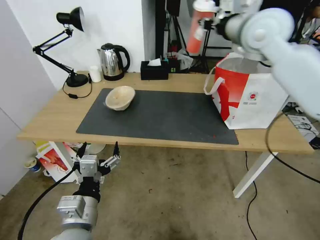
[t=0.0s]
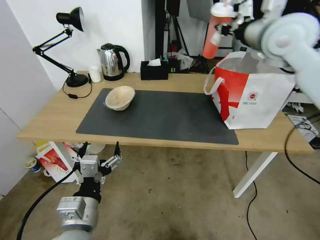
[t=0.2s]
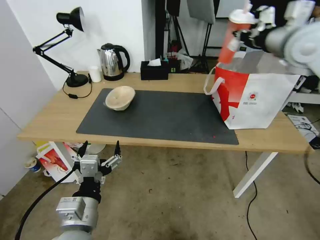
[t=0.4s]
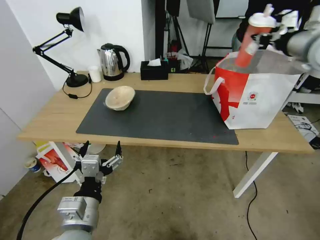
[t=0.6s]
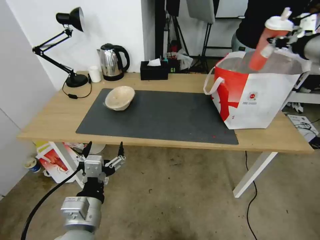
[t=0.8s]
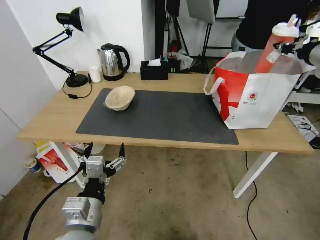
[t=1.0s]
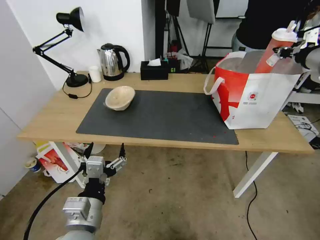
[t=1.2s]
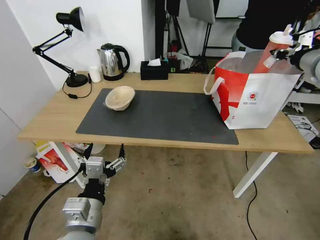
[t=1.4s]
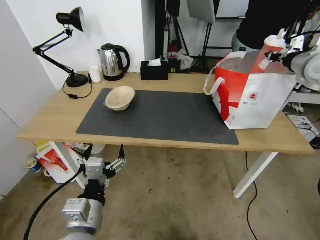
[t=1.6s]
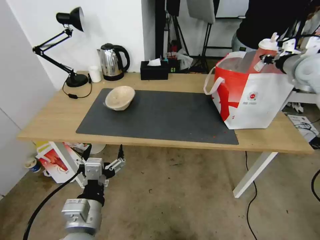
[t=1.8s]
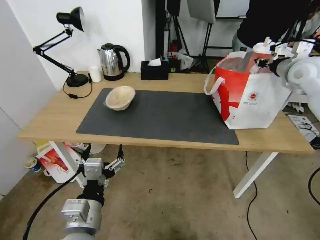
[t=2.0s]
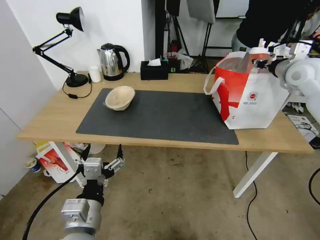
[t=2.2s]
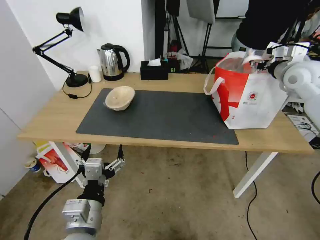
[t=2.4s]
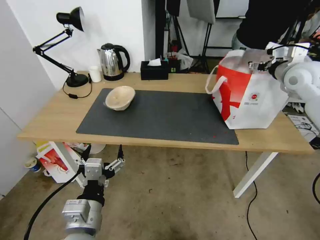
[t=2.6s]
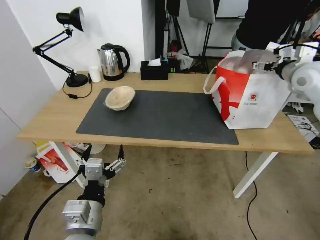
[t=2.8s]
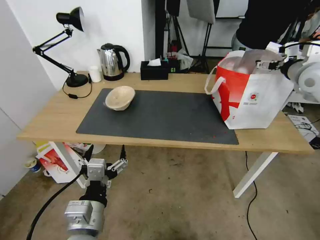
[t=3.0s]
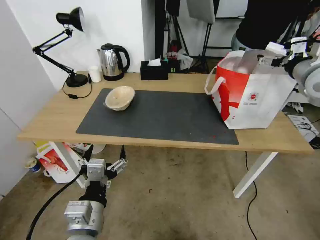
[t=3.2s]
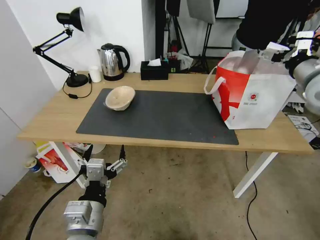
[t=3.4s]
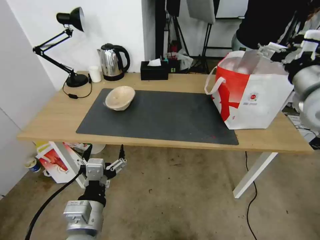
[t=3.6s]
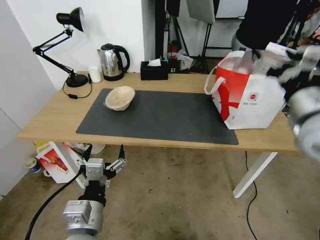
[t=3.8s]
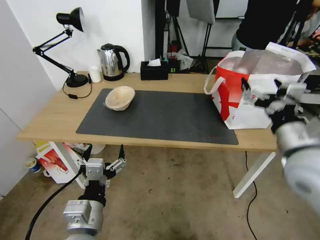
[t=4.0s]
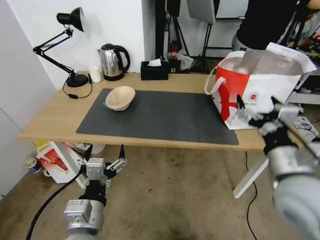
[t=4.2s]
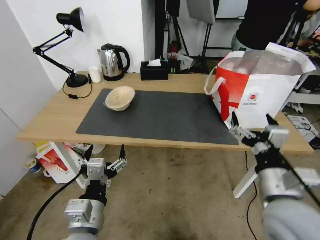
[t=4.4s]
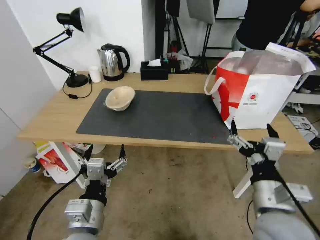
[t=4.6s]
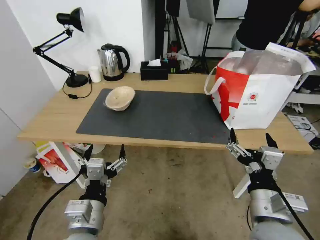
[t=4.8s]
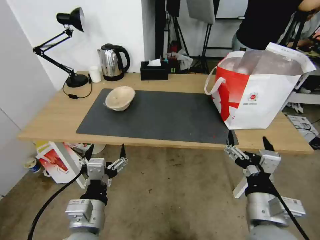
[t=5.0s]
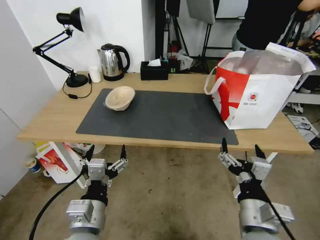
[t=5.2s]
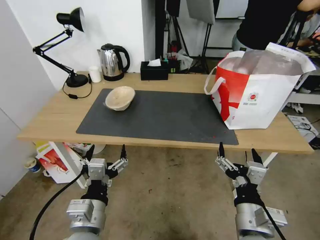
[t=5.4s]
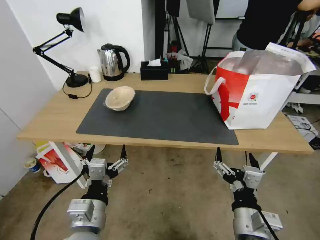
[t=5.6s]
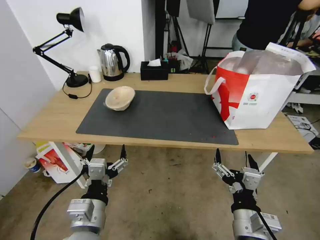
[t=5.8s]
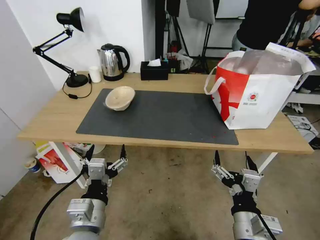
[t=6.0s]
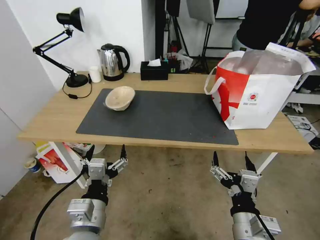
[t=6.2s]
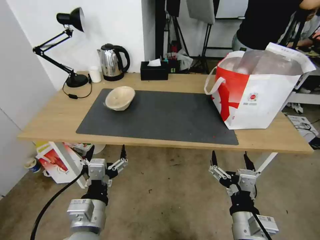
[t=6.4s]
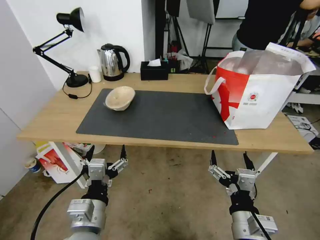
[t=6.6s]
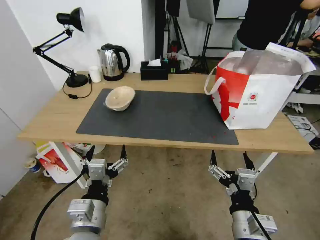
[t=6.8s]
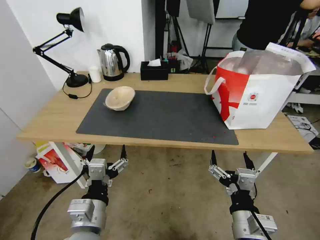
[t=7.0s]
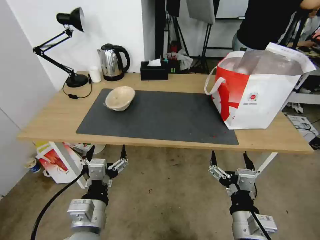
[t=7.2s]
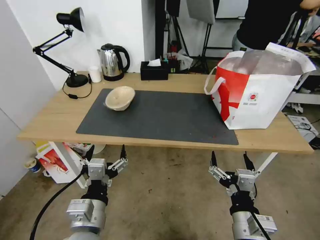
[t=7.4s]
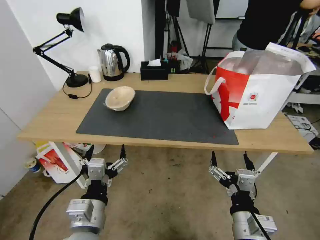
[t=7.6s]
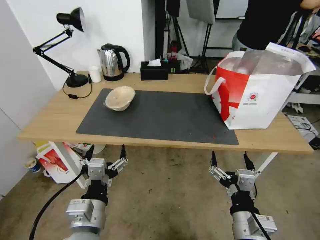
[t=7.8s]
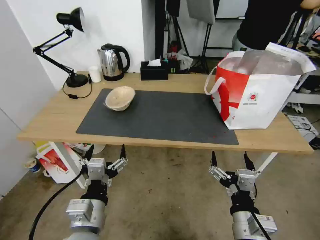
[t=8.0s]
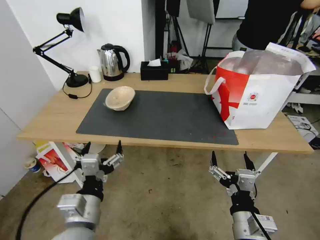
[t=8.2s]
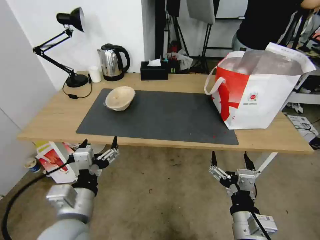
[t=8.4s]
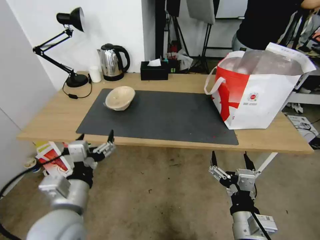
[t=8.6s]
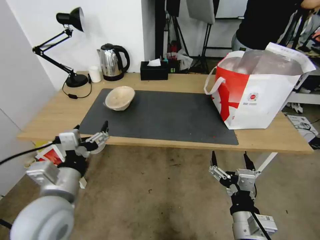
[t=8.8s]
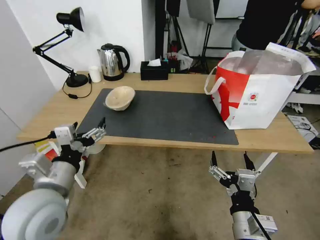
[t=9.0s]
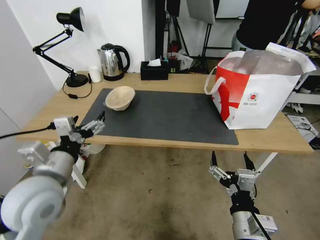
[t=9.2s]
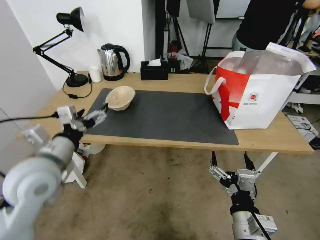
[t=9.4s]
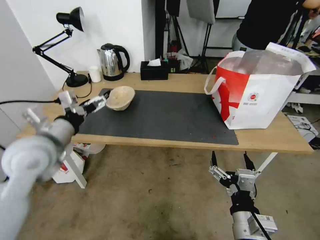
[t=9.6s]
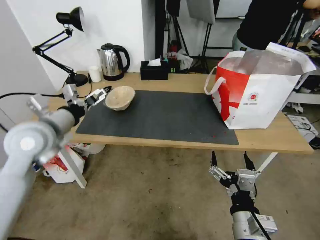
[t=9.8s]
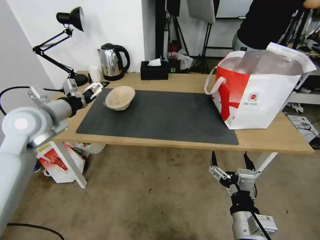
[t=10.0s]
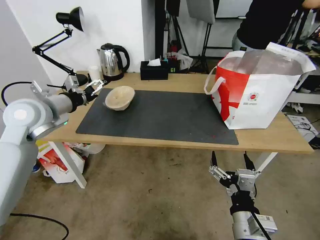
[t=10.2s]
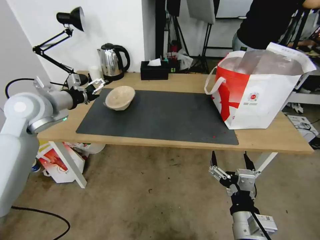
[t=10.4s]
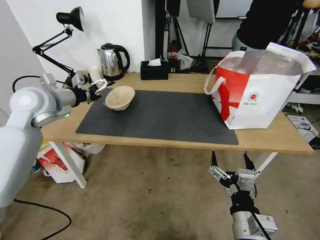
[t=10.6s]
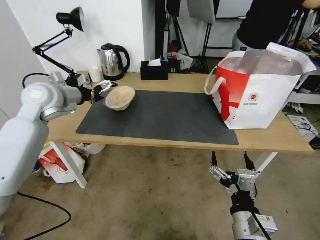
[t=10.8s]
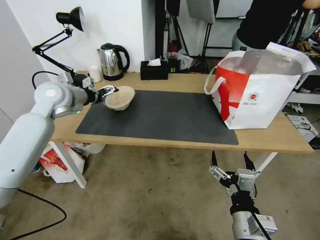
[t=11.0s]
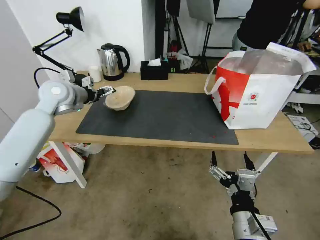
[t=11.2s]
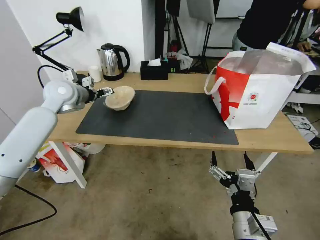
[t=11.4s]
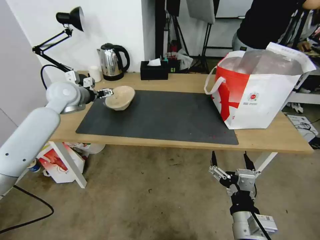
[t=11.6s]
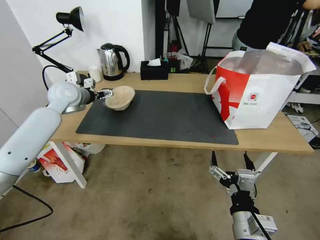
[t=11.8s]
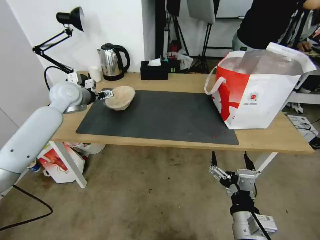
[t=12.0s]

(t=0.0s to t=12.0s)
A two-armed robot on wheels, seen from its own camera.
Task of the whole recording: Pick up the trash from the table and place it into the takeout bag.
t=0.0s - t=1.6s: The right gripper travels to the right and downward by roughly 25 cm.
t=1.6s - t=3.0s: The right gripper opens its fingers.
t=3.0s - t=4.4s: The right gripper goes about 35 cm backward, to the left and downward.
t=4.4s - t=6.0s: The right gripper goes about 15 cm downward, backward and to the left.
t=6.0s - t=7.6s: There are only small adjustments of the grippers.
t=7.6s - t=9.0s: The left gripper shifts approximately 10 cm to the left, upward and forward.
t=9.0s - t=10.4s: The left gripper goes approximately 25 cm forward and to the left.
t=10.4s - t=12.0s: The left gripper shifts approximately 10 cm forward.

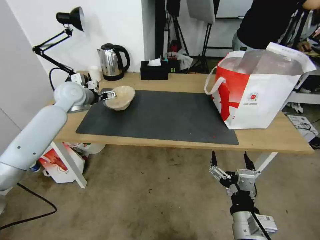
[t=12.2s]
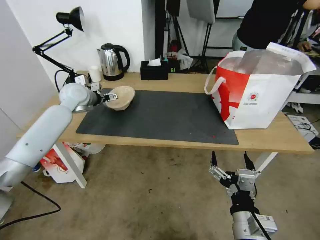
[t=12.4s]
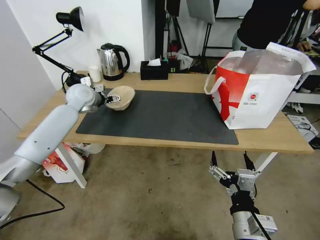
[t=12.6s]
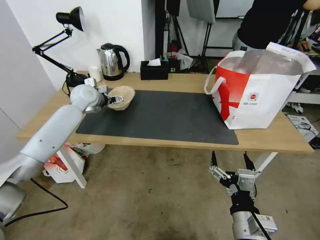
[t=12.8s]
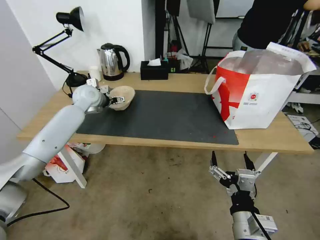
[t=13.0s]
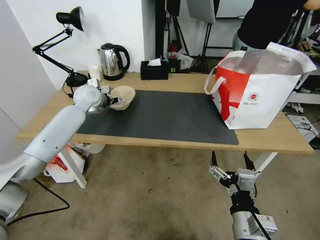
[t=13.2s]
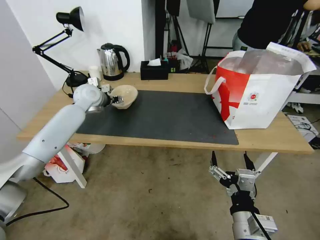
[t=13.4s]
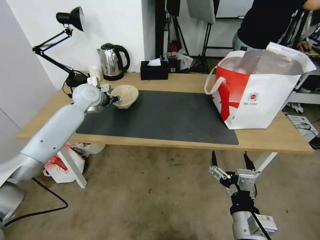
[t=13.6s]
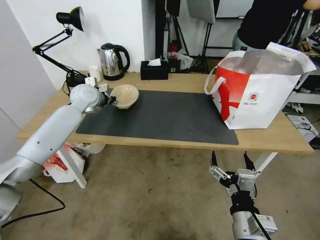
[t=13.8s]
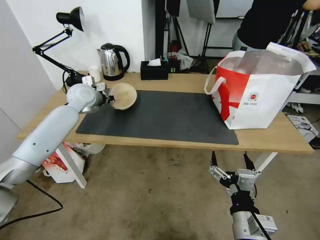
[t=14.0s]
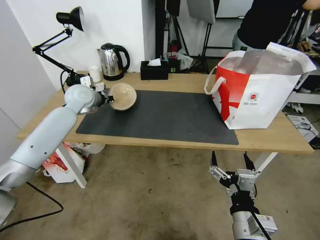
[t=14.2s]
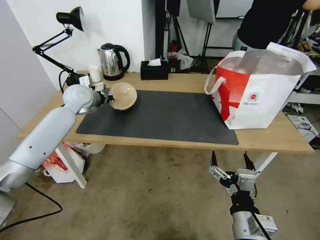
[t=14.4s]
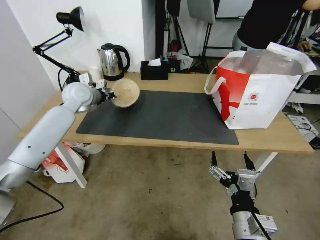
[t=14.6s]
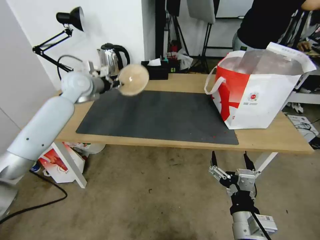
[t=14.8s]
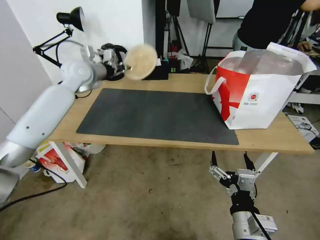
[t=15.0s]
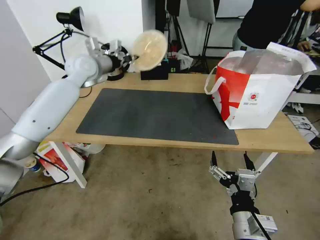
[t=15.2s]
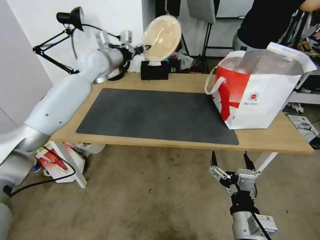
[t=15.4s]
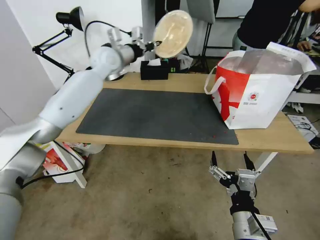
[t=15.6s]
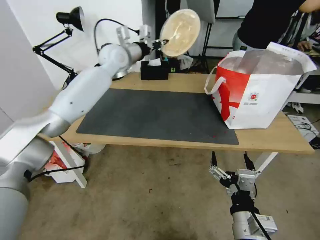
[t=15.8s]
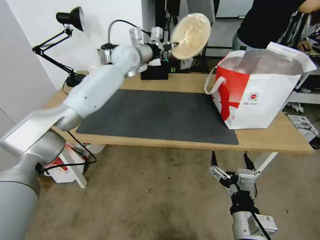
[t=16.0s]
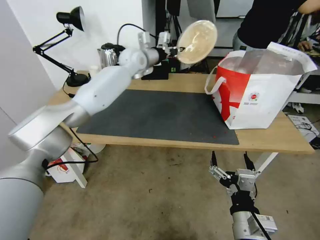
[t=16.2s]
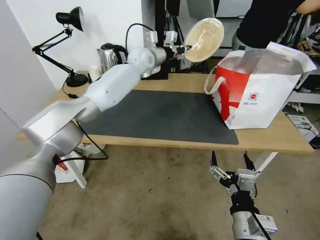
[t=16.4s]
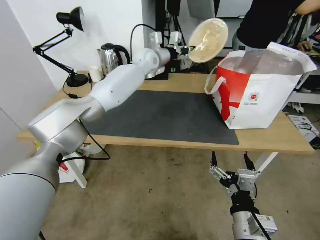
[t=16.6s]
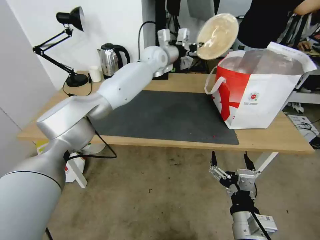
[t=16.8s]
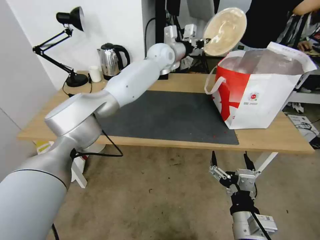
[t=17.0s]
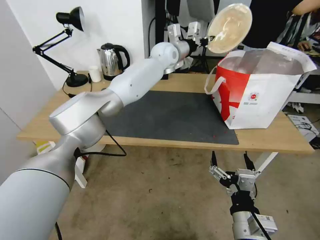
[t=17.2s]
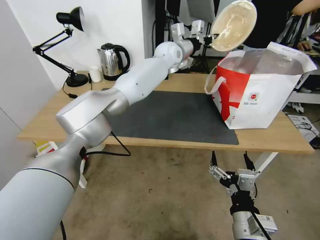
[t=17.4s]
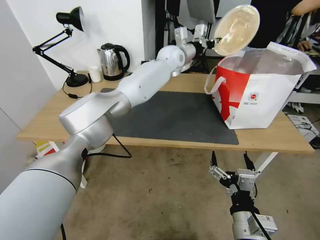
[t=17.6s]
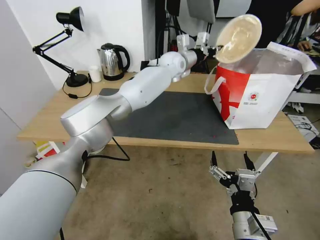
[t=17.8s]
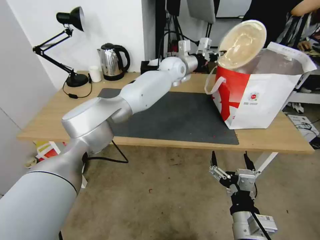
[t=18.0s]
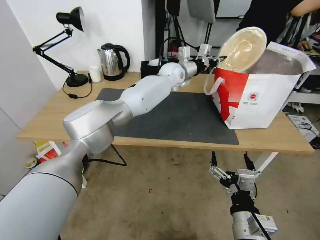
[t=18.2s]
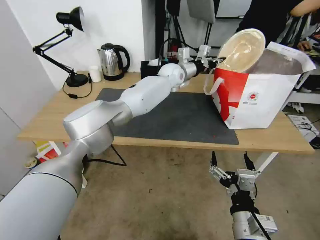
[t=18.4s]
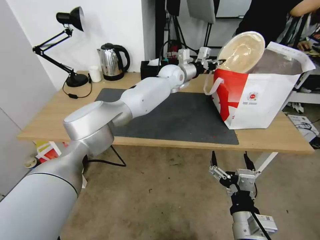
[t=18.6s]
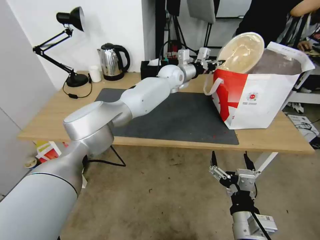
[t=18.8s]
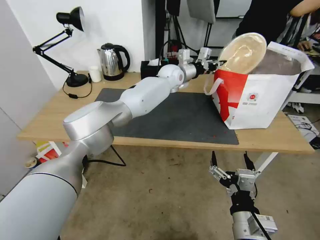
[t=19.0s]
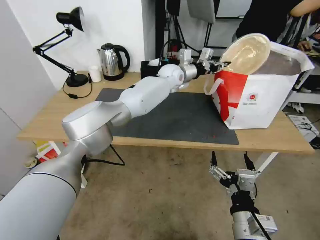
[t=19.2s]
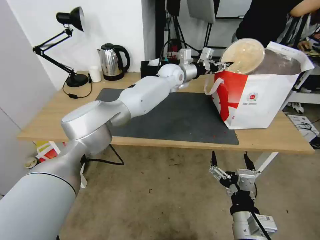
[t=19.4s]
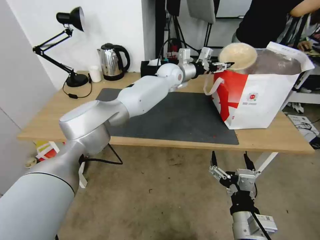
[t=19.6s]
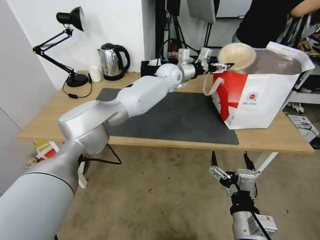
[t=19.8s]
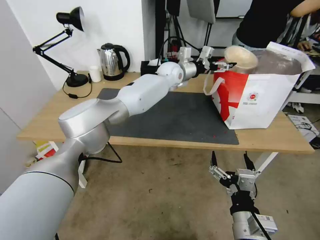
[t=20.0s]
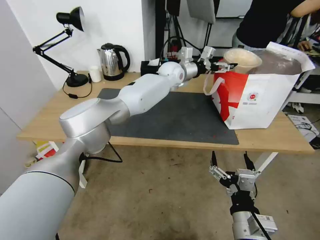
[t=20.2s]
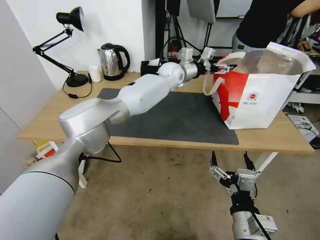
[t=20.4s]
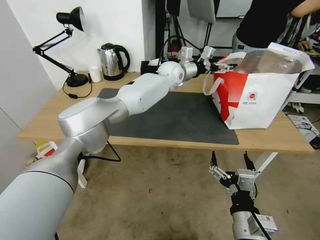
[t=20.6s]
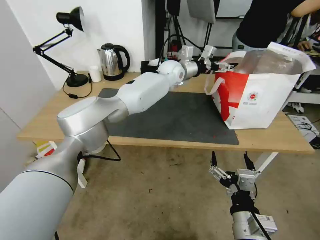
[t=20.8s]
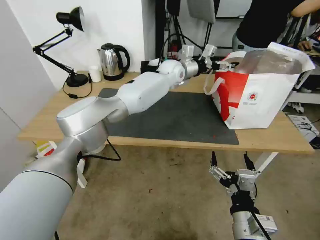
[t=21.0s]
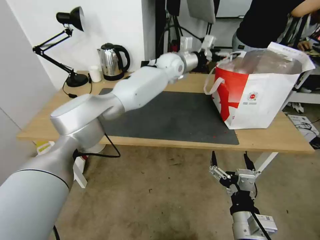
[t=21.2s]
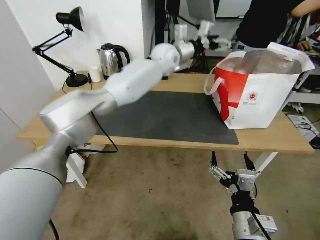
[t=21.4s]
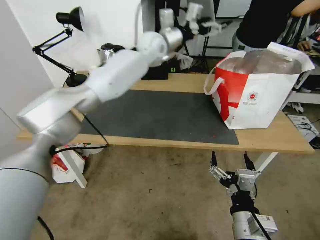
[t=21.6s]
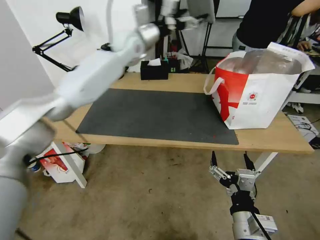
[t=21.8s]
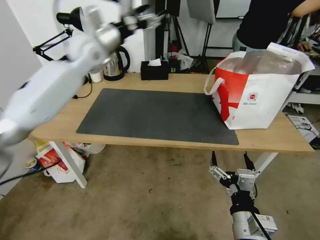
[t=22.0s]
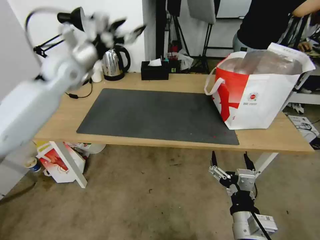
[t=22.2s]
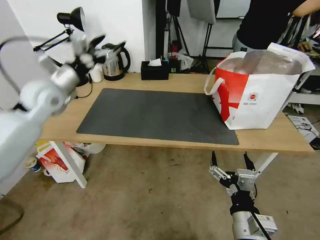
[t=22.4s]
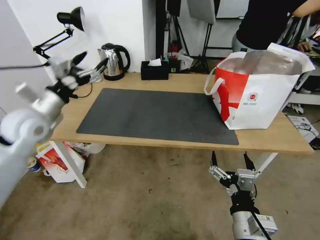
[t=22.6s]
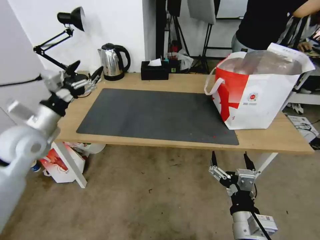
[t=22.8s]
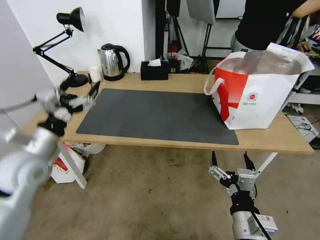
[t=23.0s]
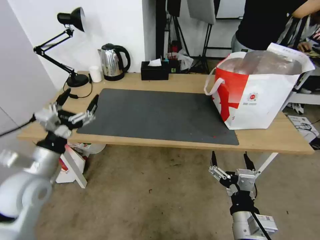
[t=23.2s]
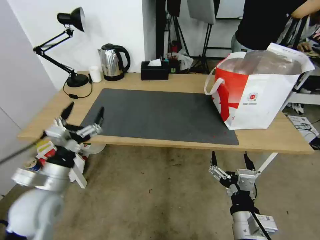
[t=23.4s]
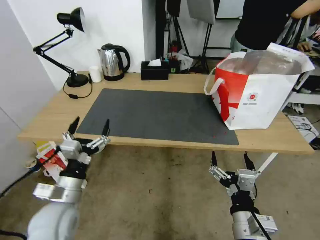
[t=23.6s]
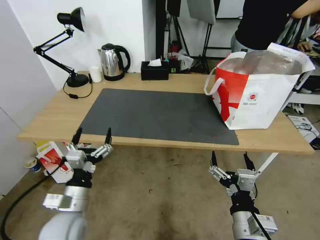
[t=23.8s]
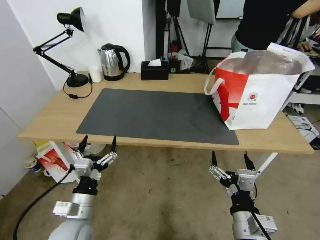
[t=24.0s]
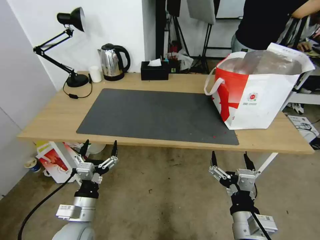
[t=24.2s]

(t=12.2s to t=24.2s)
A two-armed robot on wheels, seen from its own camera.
Task of the whole recording: Pick up the trash from the table and place it into the takeout bag.
t=12.2s - t=13.8s: The left gripper closes its fingers.
t=13.8s - t=15.2s: The left gripper shifts some 10 cm upward.
t=15.2s - t=16.6s: The left gripper travels to the right and forward by roughly 20 cm.
t=16.6s - t=18.2s: The left gripper moves to the right, some 10 cm.
t=18.2s - t=19.8s: The left gripper opens.
t=19.8s - t=21.2s: The grippers make only small movements.
t=21.2s - t=22.6s: The left gripper is displaced to the left and backward by roughly 50 cm.
t=22.6s - t=24.2s: The left gripper is displaced downward, backward and to the right by about 35 cm.
